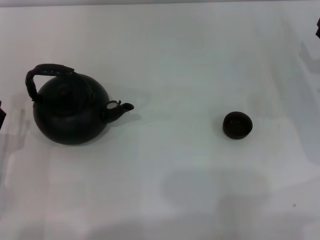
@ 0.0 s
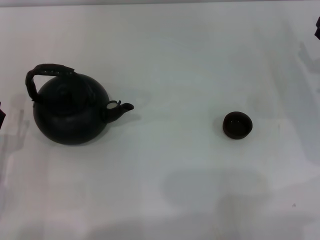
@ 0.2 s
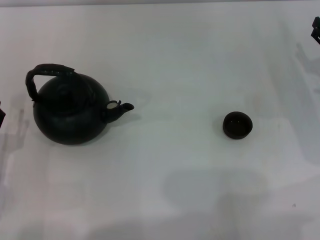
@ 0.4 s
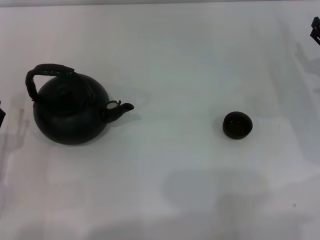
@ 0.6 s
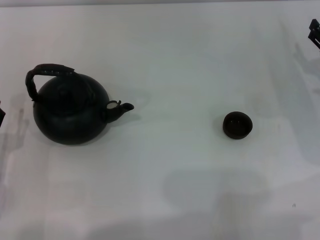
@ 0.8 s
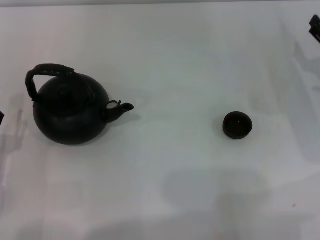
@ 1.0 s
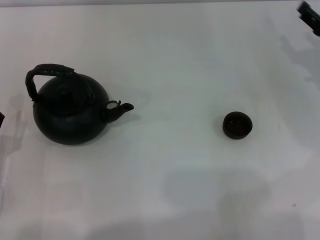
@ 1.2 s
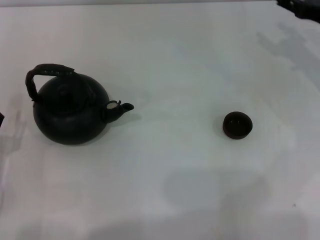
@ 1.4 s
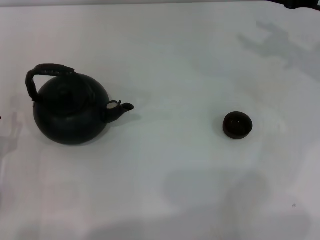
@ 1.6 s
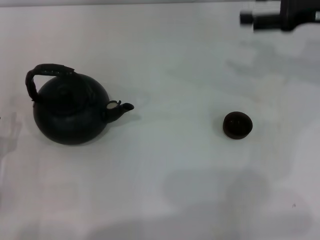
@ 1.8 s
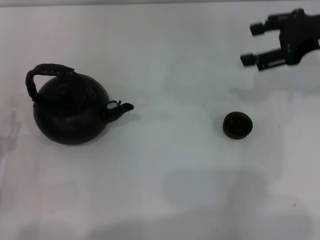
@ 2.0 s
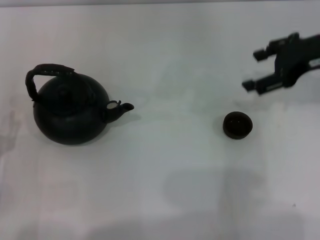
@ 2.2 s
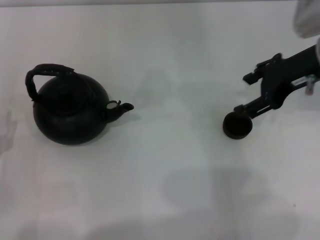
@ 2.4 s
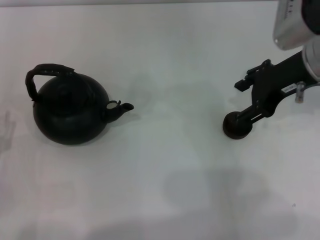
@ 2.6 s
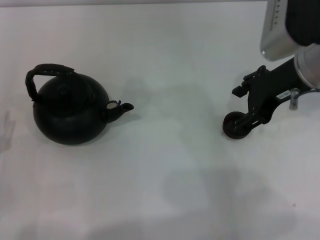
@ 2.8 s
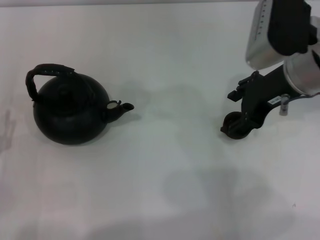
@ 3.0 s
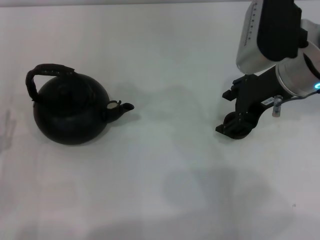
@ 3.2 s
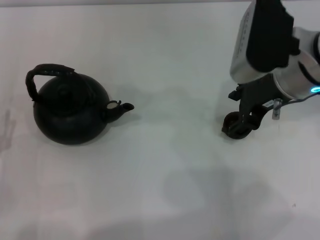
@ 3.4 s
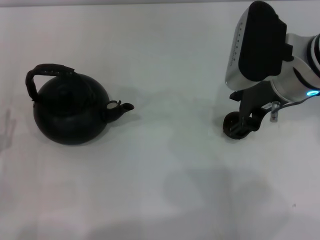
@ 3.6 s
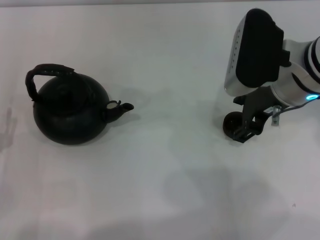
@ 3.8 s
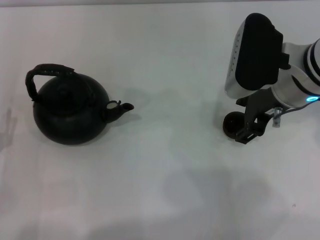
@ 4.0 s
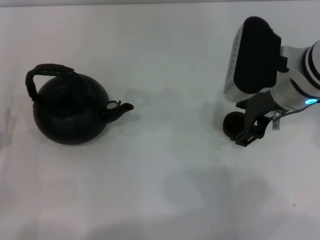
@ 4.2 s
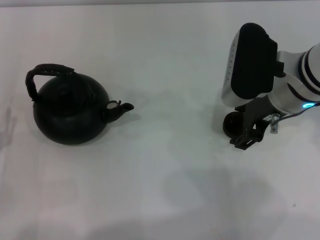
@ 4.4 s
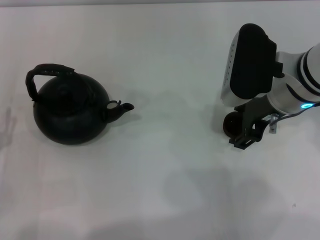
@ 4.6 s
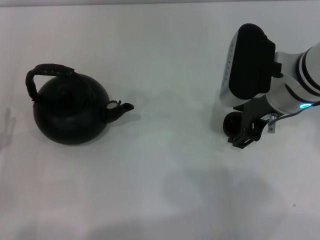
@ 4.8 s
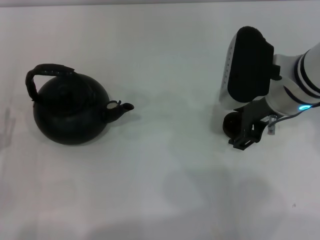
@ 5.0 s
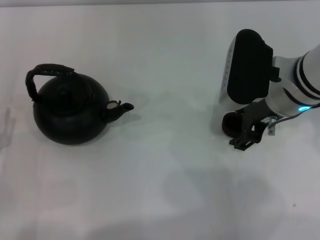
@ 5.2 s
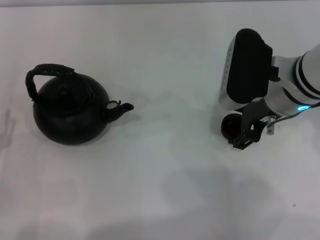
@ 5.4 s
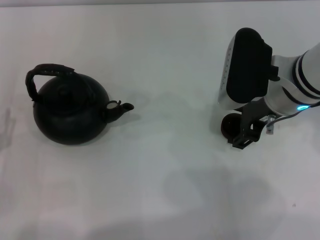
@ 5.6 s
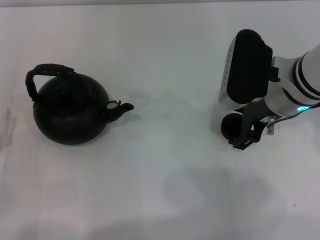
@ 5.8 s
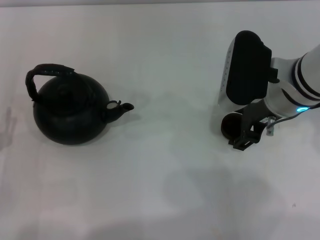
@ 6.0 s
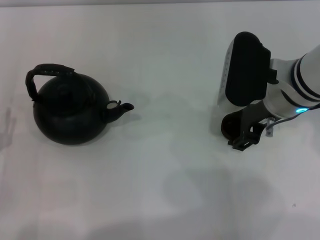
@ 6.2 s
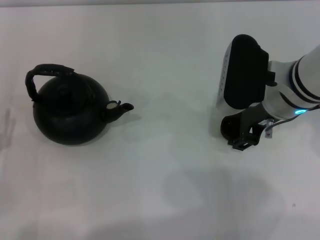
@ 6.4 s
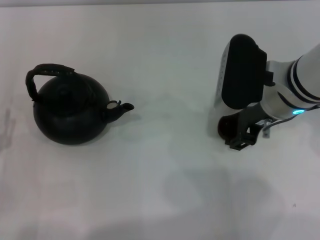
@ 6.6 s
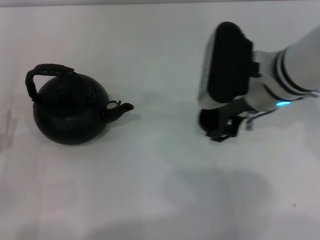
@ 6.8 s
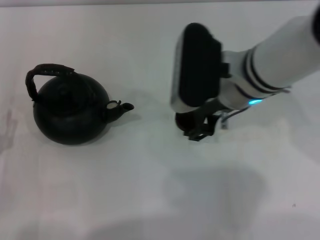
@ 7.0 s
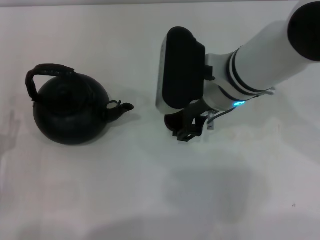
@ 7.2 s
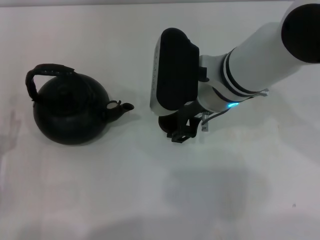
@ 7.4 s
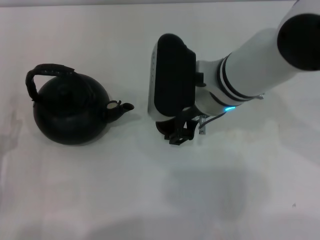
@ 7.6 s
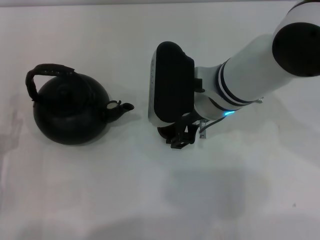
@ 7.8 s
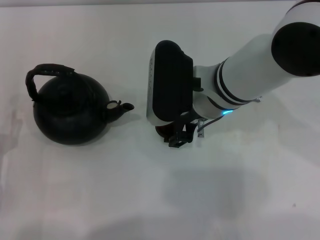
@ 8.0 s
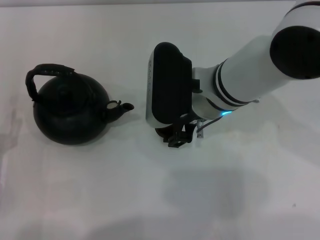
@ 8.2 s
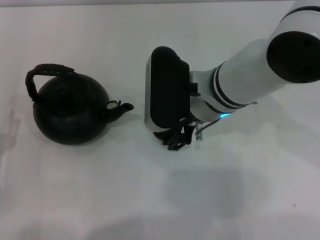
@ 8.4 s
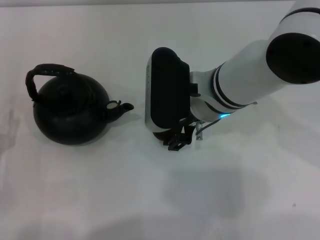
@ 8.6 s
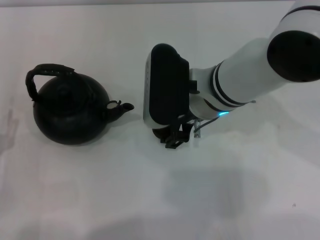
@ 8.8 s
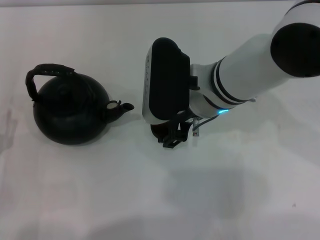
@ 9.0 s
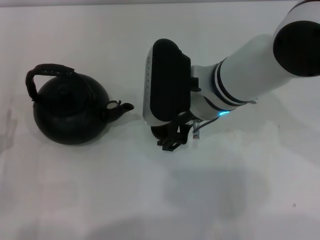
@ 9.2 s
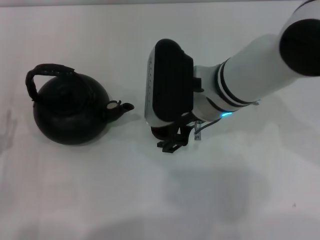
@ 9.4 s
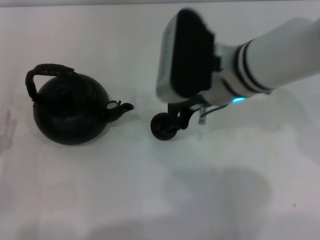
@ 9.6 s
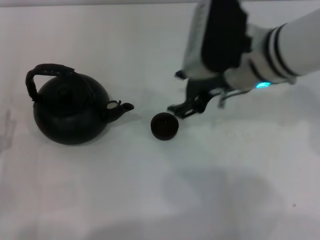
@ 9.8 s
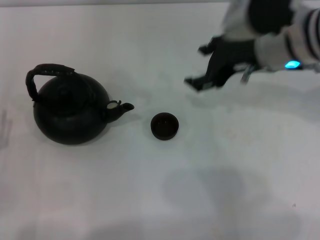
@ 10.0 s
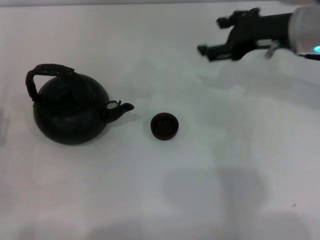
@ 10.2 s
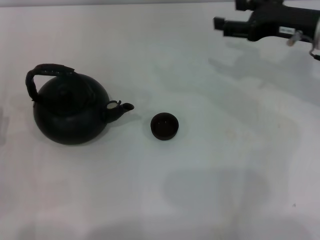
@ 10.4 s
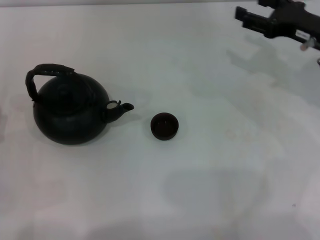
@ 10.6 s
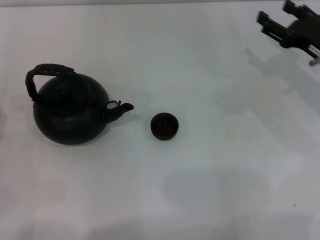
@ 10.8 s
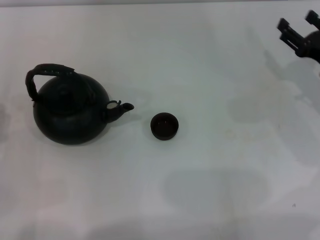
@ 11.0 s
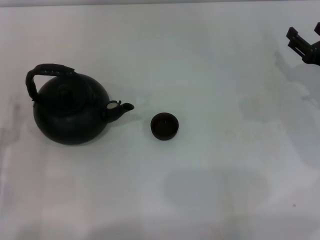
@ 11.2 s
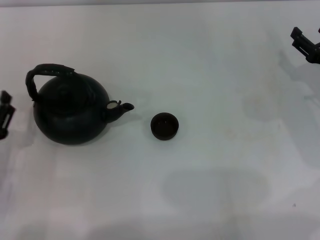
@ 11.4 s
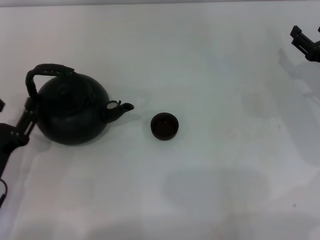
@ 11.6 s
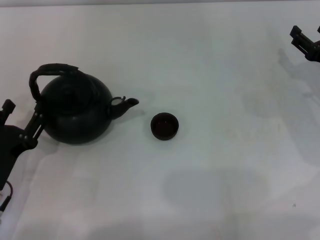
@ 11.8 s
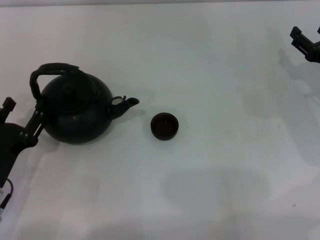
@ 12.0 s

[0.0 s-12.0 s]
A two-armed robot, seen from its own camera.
Task of the whole recording: Grasp the handle of the teapot with one hand and pour tea into the teacup.
Step, 0.0 to 6.6 s: Pick up the teacup with the right gripper.
Step, 6.8 to 9.8 s: Place the teacup in the center of view with the right gripper.
1.6 to 3.0 s: The right gripper heads to the left and backward, covering some 15 cm.
3.0 to 4.4 s: There are only small adjustments of the grippers.
4.4 to 6.0 s: Neither gripper changes place.
6.0 to 7.6 s: The right gripper heads to the left, covering some 10 cm.
7.6 to 9.0 s: The two grippers keep their place.
9.0 to 10.4 s: The right gripper is displaced to the right by roughly 20 cm.
10.4 to 12.0 s: The right gripper is displaced downward and to the right by roughly 15 cm.

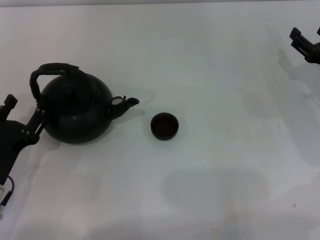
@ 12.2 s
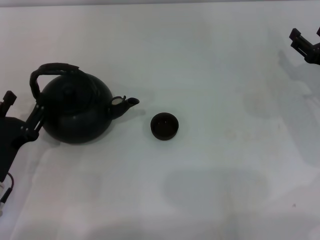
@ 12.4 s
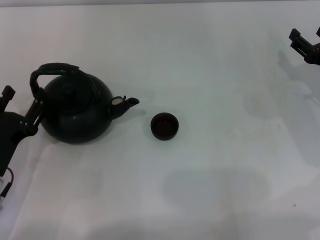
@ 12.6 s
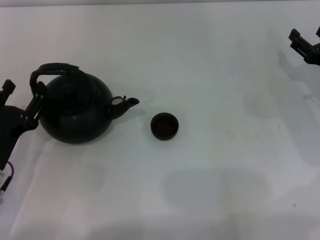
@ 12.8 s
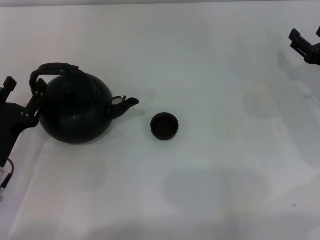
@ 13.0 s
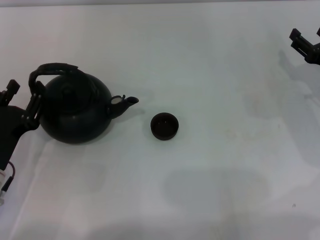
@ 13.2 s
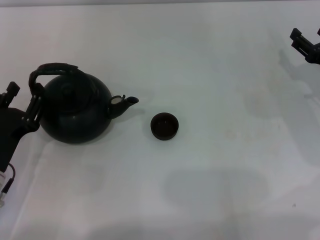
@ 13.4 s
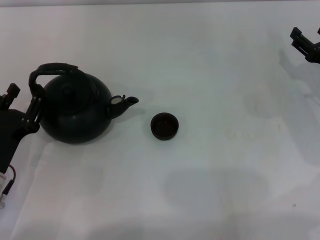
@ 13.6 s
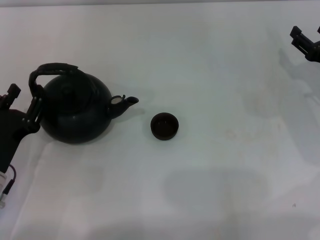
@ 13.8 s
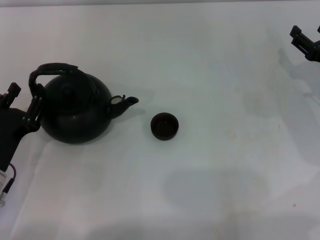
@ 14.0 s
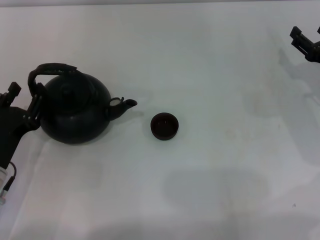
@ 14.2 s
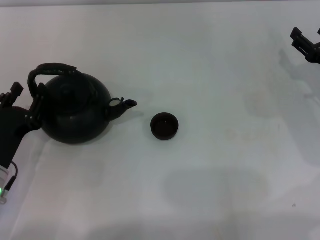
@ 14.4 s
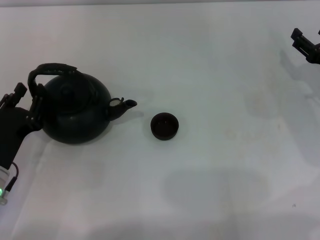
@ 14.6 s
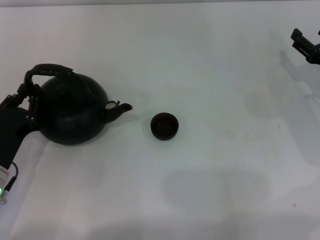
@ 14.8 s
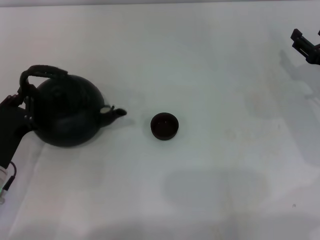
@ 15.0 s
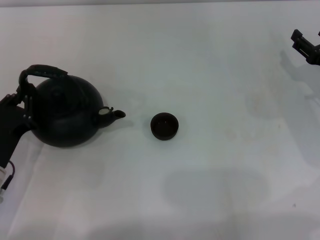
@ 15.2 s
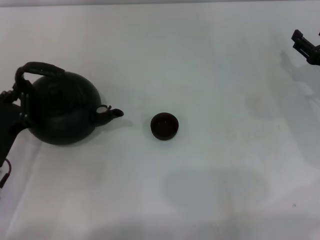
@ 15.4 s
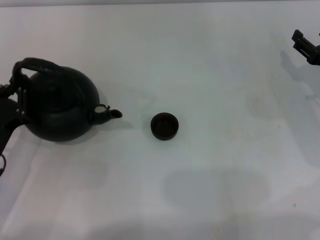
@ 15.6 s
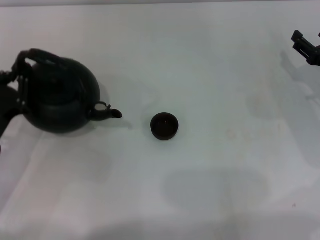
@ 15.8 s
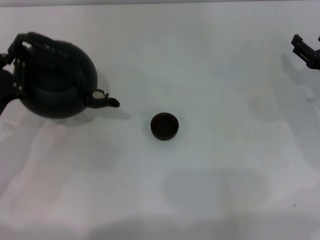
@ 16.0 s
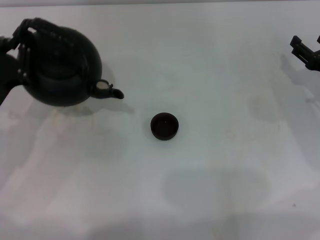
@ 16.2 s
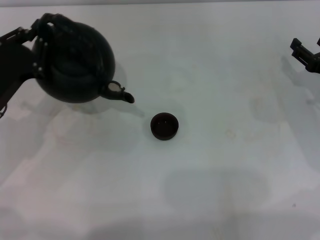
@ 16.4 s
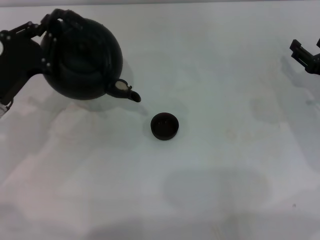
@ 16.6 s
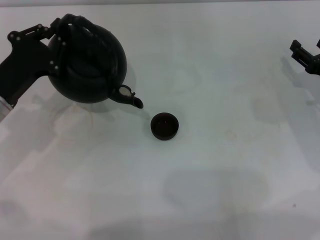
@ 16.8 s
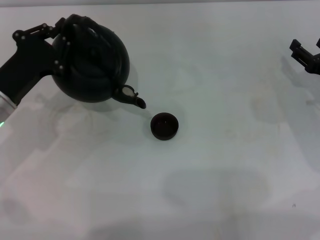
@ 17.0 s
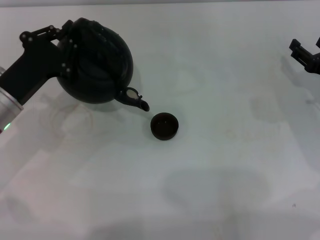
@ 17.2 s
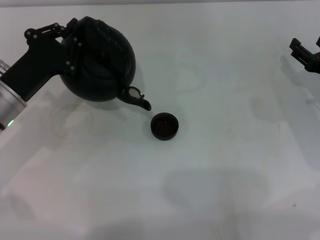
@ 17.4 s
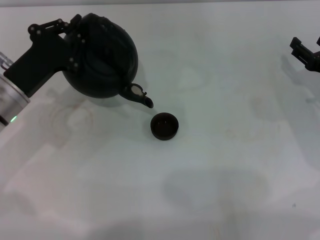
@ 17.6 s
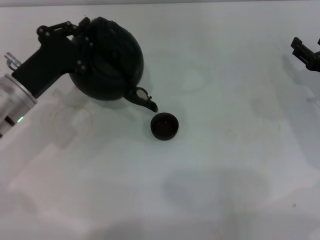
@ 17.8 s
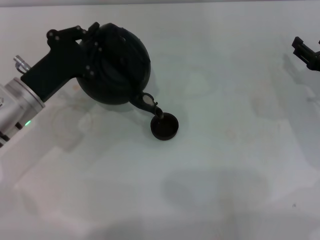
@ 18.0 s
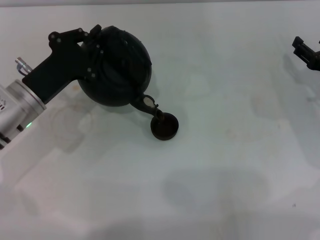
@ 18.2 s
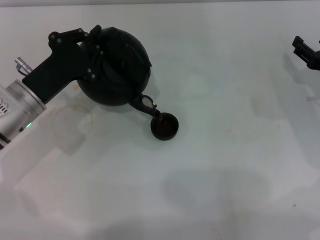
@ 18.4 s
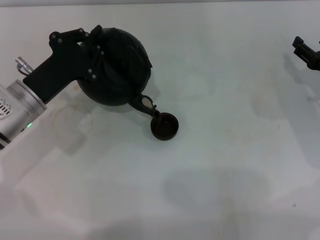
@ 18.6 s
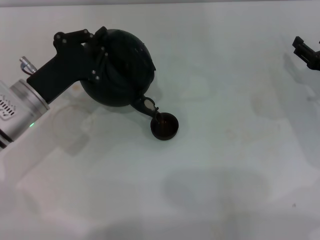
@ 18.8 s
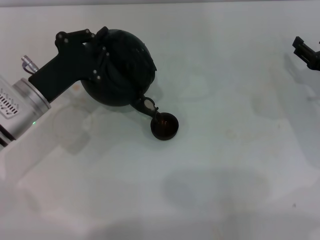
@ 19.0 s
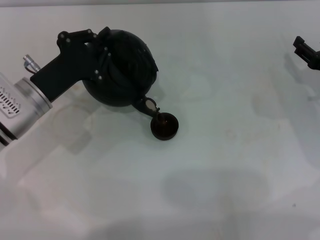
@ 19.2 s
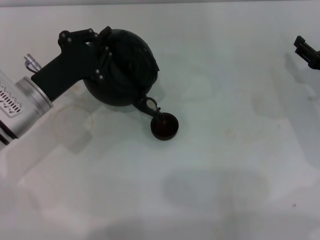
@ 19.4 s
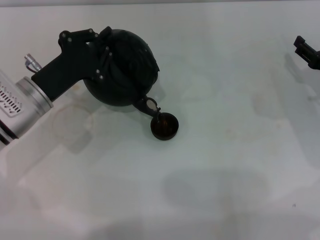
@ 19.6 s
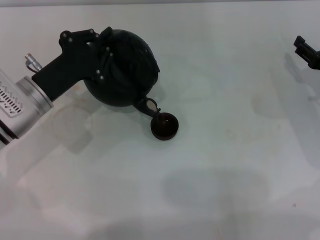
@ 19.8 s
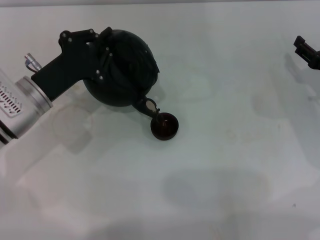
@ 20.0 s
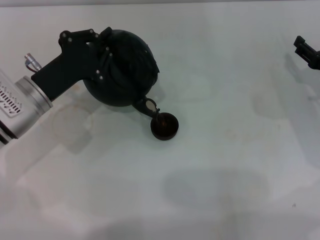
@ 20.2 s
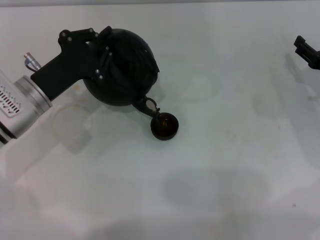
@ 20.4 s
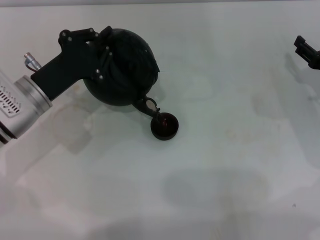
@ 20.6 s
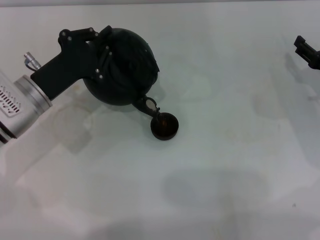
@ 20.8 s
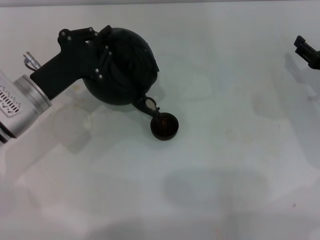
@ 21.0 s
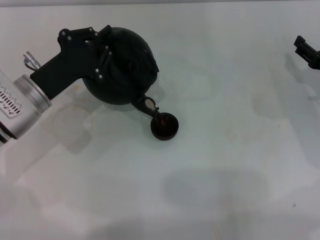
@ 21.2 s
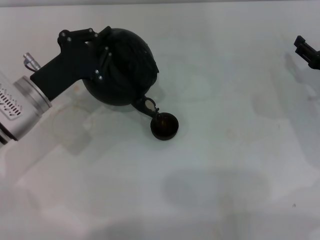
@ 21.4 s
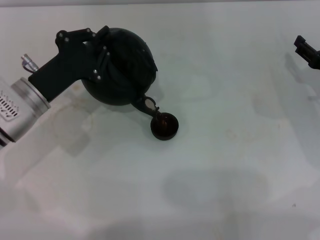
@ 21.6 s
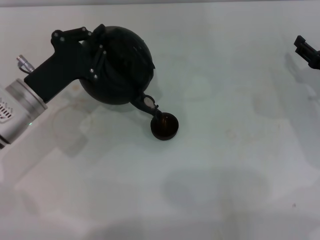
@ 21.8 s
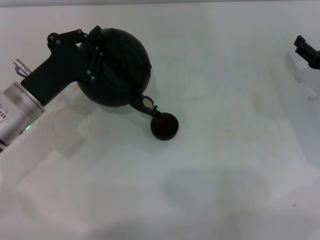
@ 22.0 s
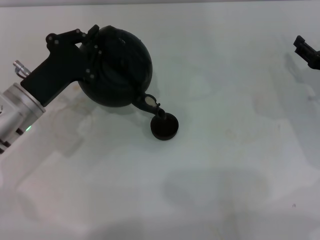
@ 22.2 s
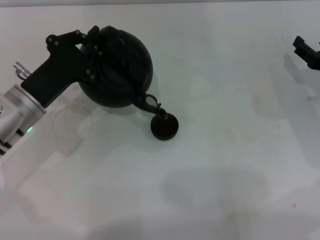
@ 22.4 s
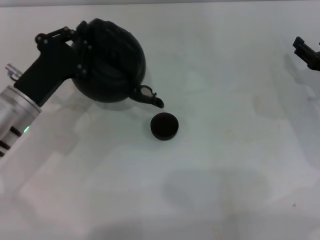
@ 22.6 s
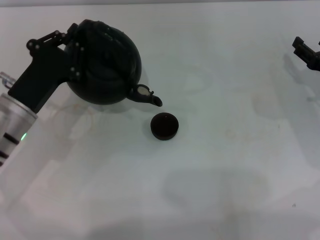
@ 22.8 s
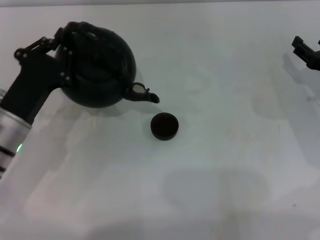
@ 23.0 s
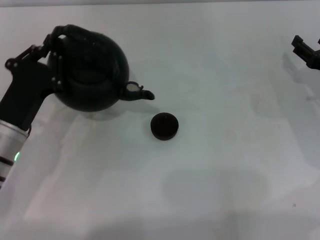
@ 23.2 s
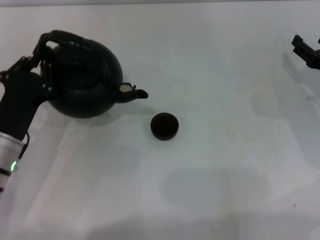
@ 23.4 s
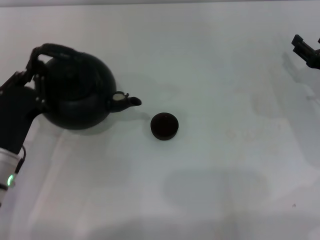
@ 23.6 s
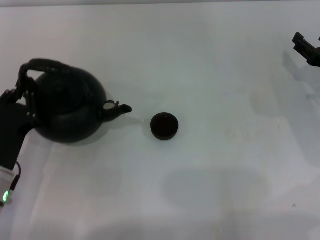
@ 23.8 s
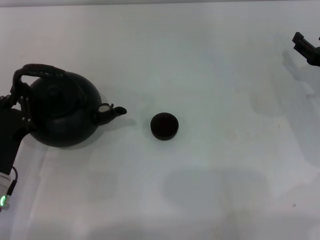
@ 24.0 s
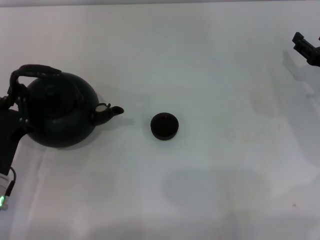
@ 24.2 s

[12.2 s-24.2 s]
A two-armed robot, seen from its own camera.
Task of the whole recording: Grasp the handle of the teapot with one hand and pour tea into the teacup.
Step, 12.2 to 16.2 s: Pick up the teapot with the left gripper.
Step, 16.4 to 22.8 s: Pour tea into the teacup with the left gripper.
12.2 to 13.8 s: The grippers move only a little.
13.8 to 15.2 s: The left gripper closes up.
15.2 to 16.6 s: The left gripper travels forward and upward by approximately 10 cm.
16.6 to 18.2 s: The grippers stay close to where they were, moving slightly.
18.2 to 19.8 s: The grippers move only a little.
19.8 to 21.2 s: The two grippers keep their place.
21.2 to 22.6 s: The grippers make only small movements.
22.6 to 24.2 s: The left gripper travels backward by roughly 10 cm.
